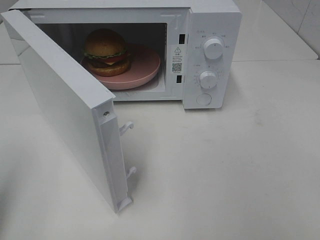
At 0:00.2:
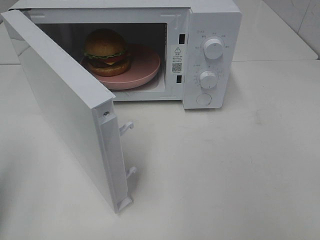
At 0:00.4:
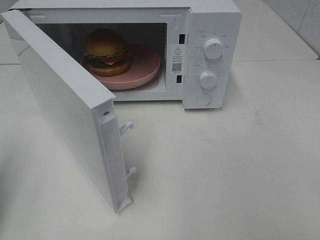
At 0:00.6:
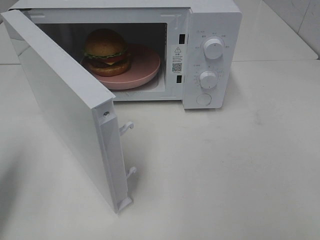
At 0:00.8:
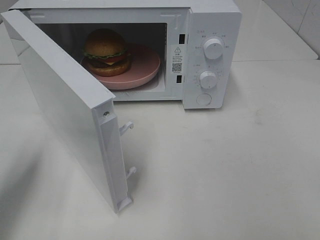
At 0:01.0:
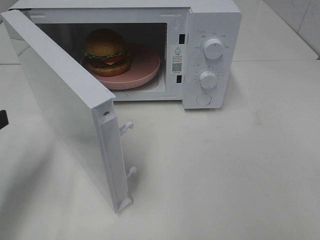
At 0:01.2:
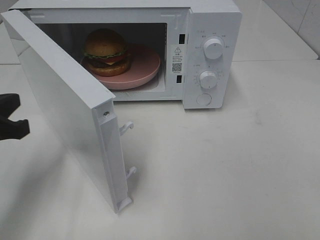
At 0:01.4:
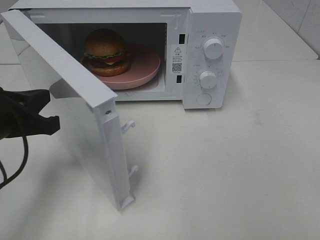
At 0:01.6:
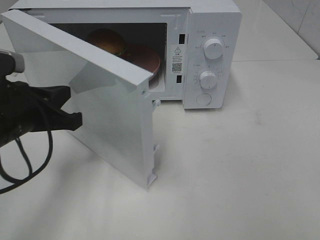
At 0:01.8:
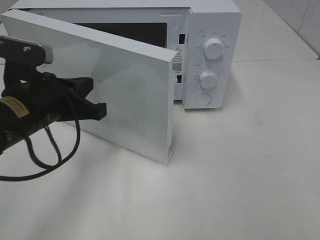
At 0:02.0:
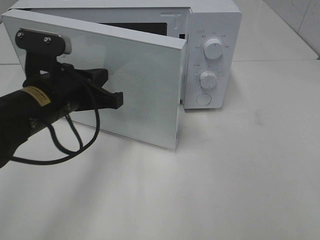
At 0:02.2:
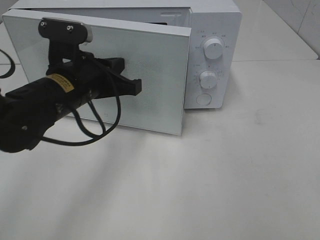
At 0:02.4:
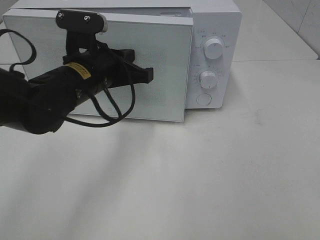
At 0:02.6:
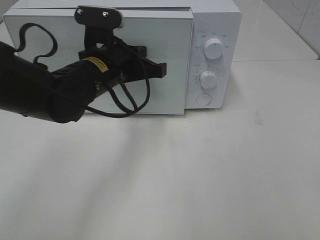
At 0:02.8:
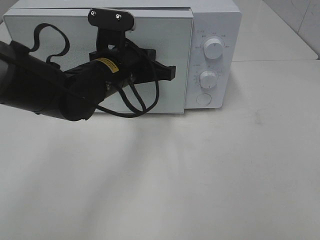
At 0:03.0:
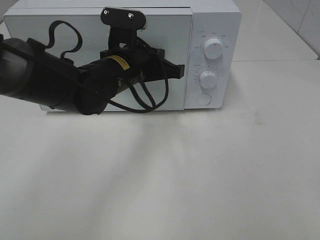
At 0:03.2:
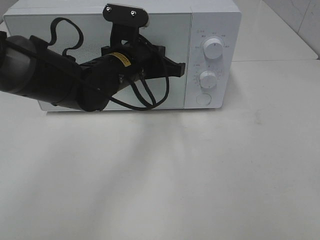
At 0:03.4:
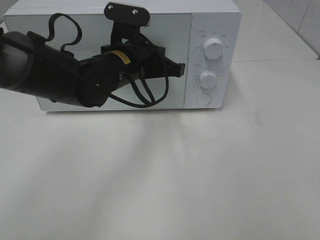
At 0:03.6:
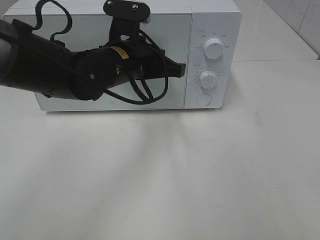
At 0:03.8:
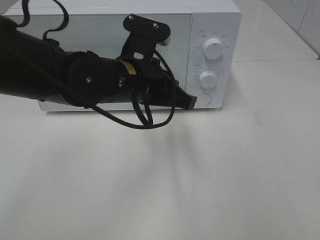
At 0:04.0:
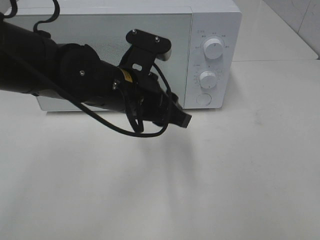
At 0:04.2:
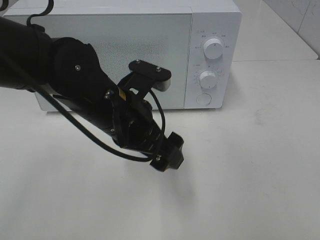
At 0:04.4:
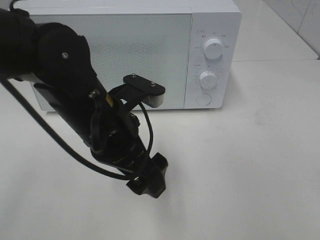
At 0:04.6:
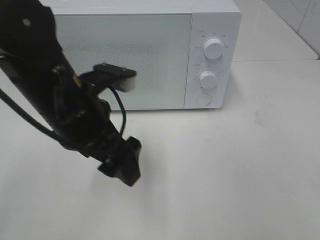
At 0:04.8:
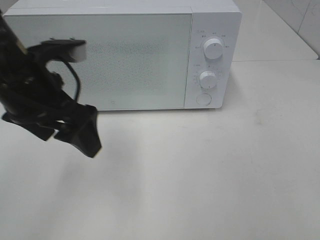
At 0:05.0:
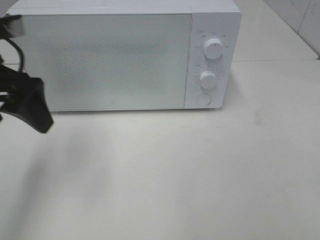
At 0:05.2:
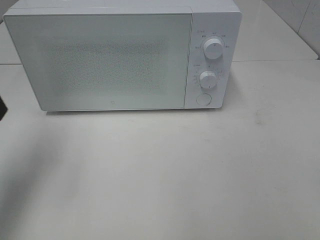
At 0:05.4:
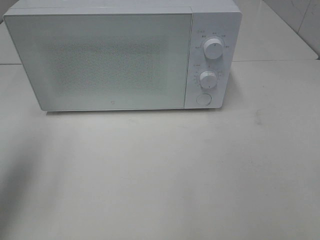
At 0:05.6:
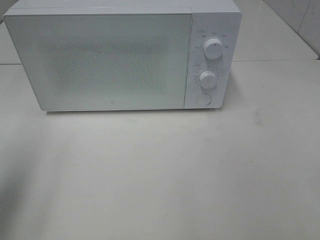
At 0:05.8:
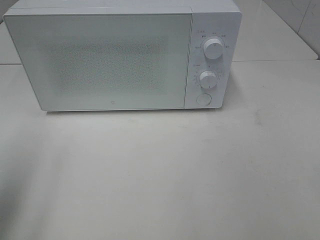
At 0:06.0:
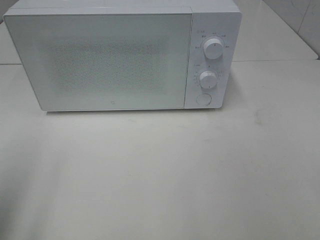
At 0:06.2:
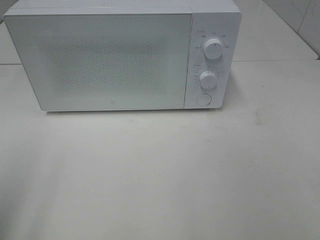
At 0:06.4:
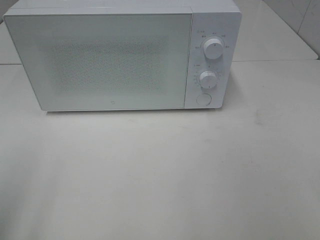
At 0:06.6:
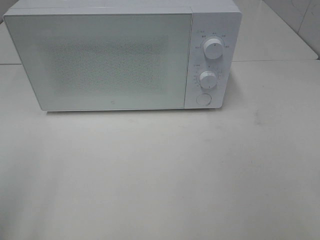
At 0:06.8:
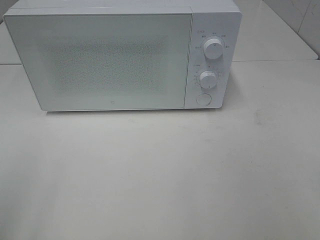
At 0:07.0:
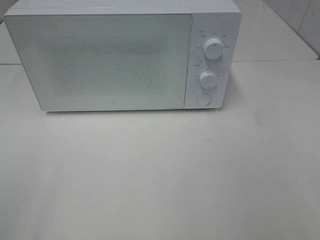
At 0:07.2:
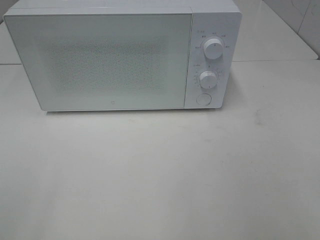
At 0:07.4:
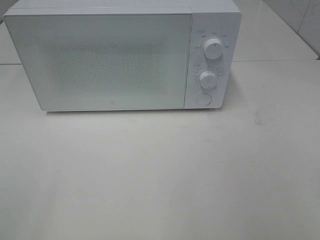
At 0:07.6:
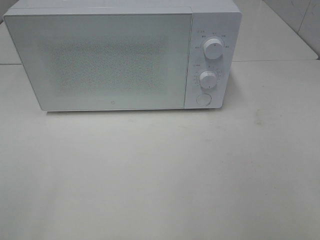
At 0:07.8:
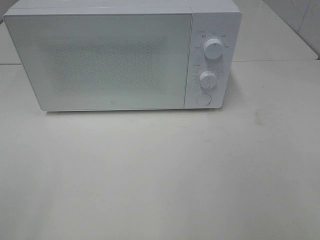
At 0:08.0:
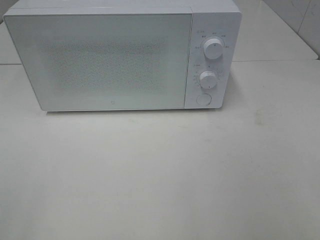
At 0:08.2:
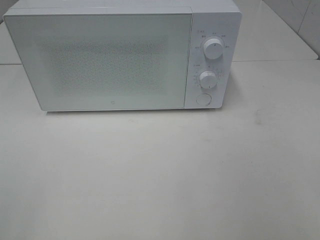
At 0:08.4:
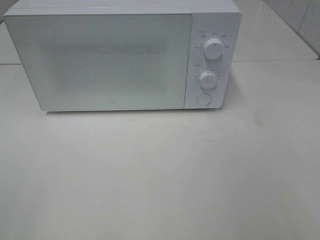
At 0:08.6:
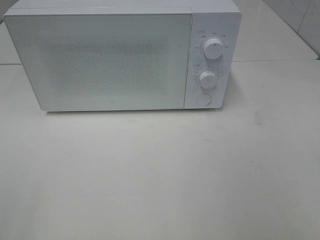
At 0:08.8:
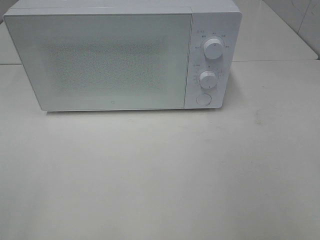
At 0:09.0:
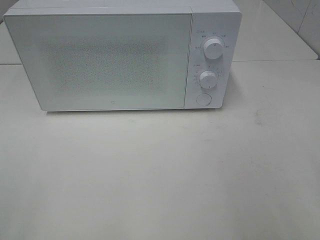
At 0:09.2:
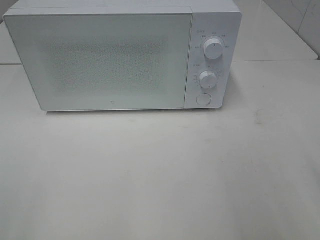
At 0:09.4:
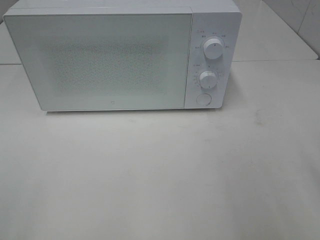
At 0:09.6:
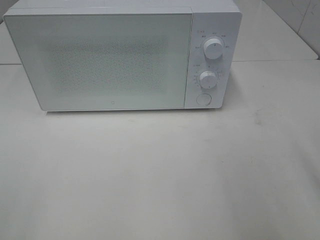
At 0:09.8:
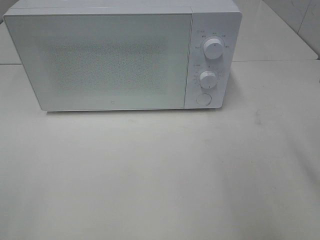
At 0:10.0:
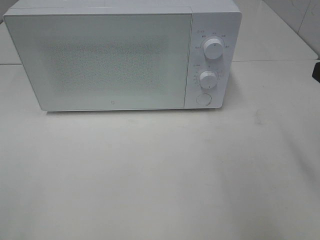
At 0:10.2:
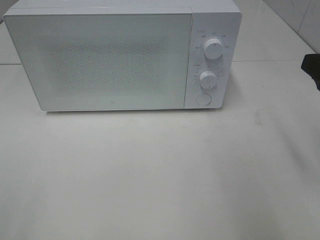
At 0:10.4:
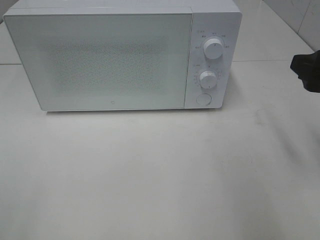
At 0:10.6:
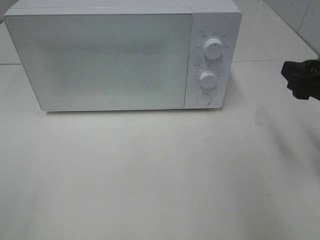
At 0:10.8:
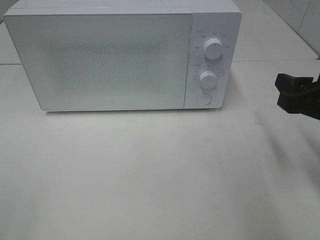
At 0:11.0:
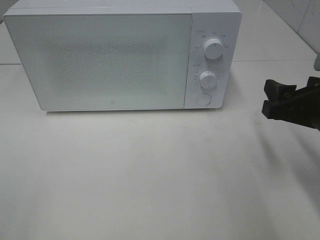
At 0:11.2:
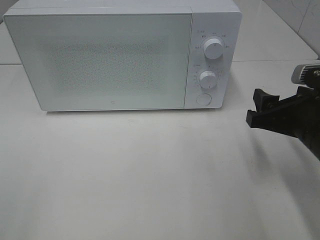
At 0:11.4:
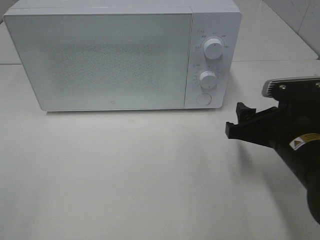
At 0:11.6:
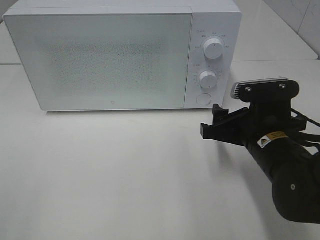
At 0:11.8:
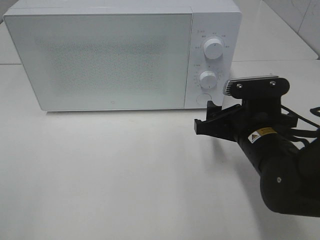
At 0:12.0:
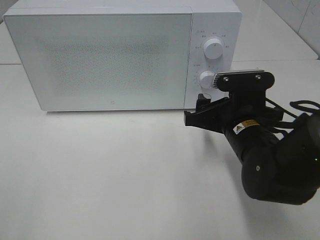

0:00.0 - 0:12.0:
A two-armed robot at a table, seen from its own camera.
Task of the whole recording: Heat the burger.
Step, 0:00.0 - 0:03.6: Left hand: close the microwave door.
0:00.0 - 0:01.6: The left gripper is displaced to the right, forward and downward by approximately 20 cm.
0:01.6 - 0:03.0: The left gripper moves to the right and forward, about 20 cm.
0:03.0 - 0:04.4: The left gripper shifts about 10 cm backward, and opens up.
0:04.4 - 0:06.0: The left gripper goes approximately 25 cm to the left and backward.
0:06.0 - 0:07.6: The left gripper goes some 10 cm backward.
0:09.0 - 0:10.4: The right gripper moves forward, roughly 15 cm.
0:10.4 - 0:12.0: The right gripper travels to the left and downward by roughly 15 cm.

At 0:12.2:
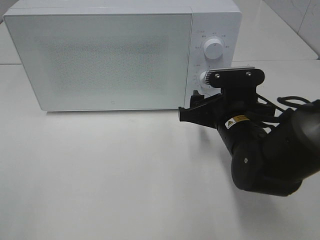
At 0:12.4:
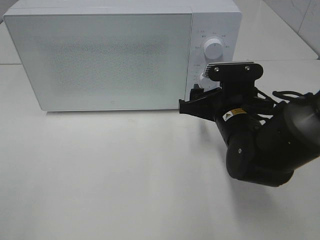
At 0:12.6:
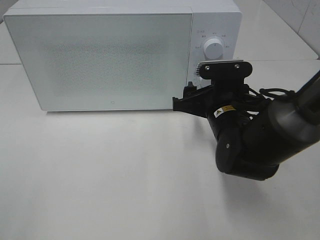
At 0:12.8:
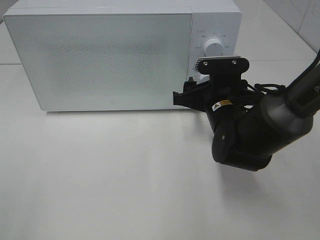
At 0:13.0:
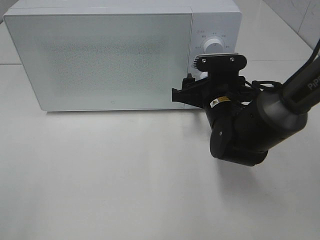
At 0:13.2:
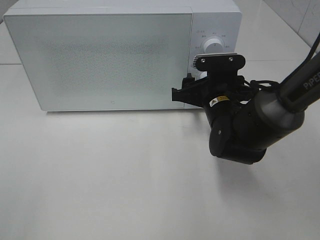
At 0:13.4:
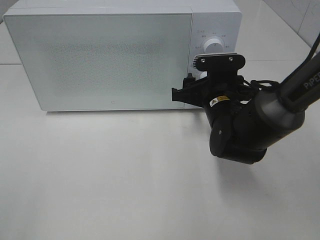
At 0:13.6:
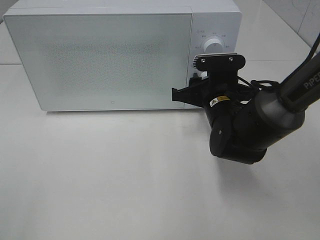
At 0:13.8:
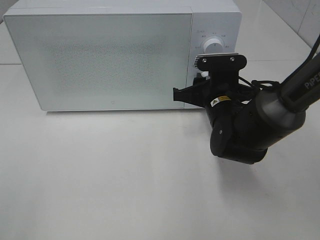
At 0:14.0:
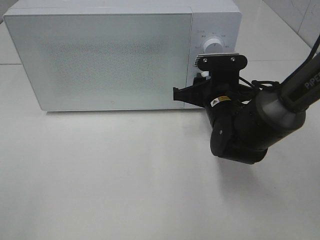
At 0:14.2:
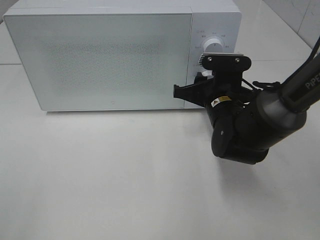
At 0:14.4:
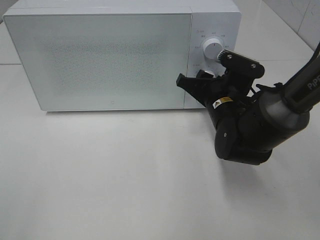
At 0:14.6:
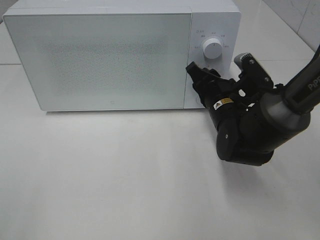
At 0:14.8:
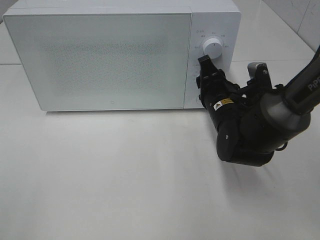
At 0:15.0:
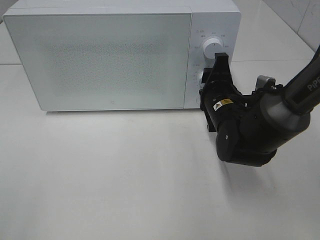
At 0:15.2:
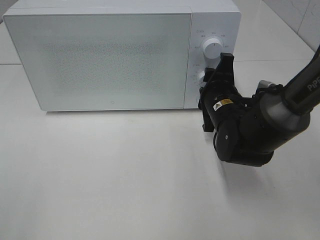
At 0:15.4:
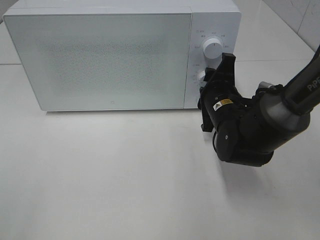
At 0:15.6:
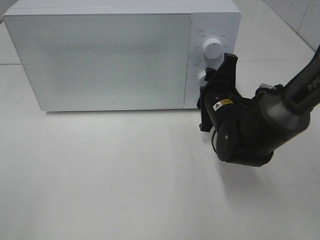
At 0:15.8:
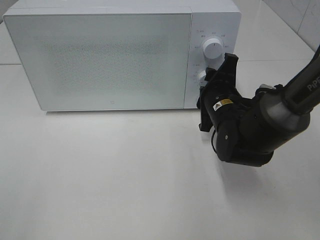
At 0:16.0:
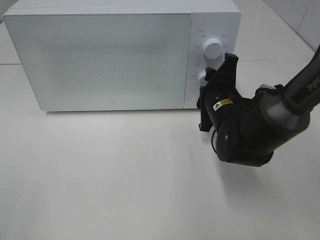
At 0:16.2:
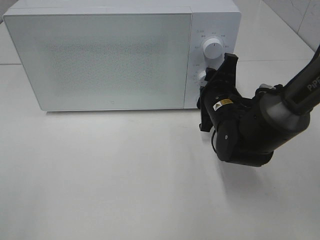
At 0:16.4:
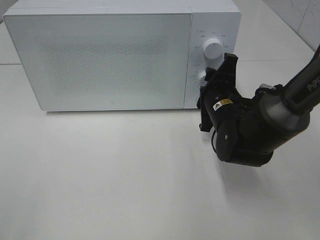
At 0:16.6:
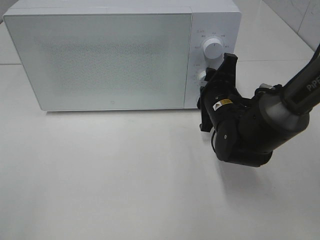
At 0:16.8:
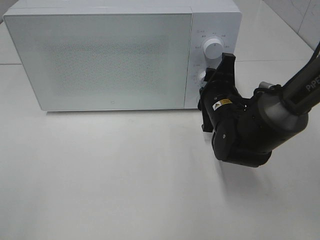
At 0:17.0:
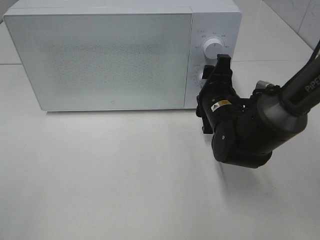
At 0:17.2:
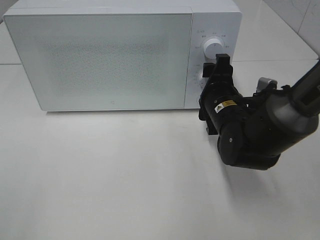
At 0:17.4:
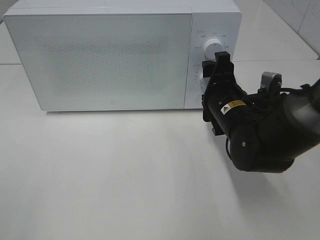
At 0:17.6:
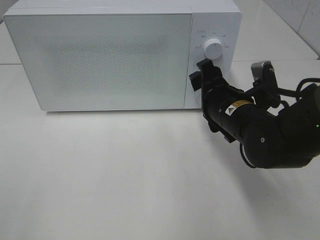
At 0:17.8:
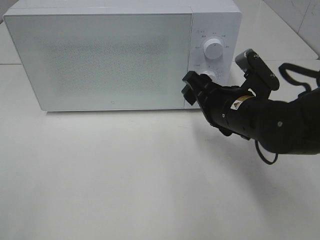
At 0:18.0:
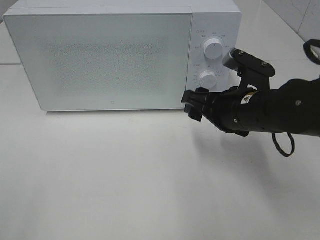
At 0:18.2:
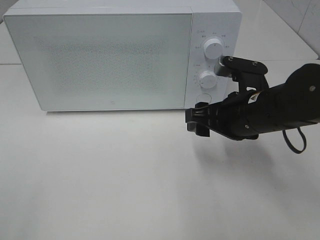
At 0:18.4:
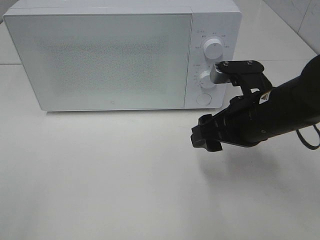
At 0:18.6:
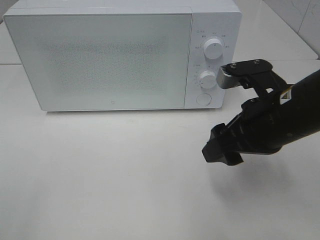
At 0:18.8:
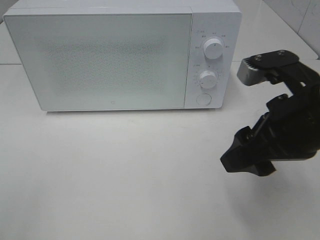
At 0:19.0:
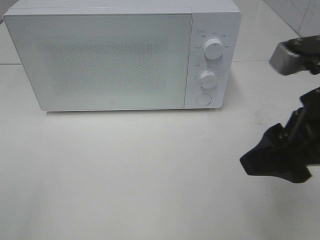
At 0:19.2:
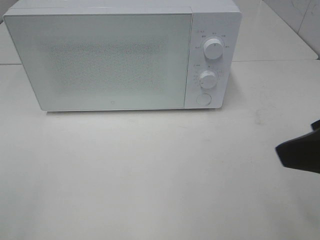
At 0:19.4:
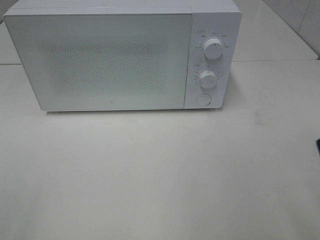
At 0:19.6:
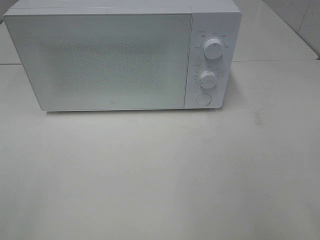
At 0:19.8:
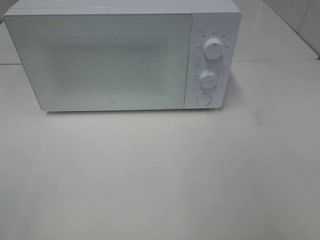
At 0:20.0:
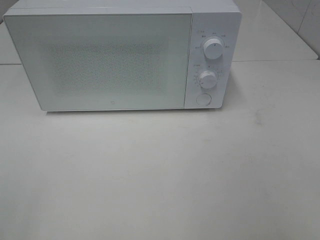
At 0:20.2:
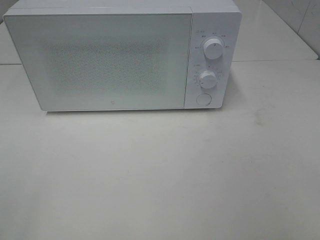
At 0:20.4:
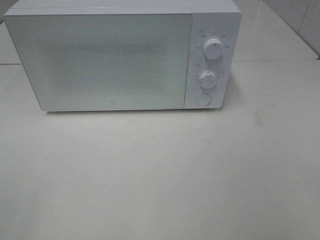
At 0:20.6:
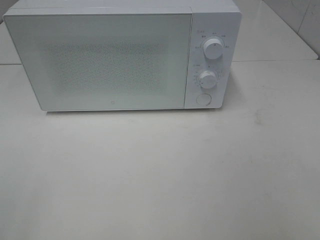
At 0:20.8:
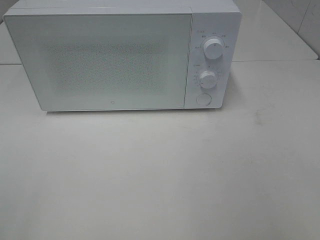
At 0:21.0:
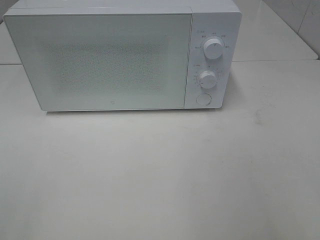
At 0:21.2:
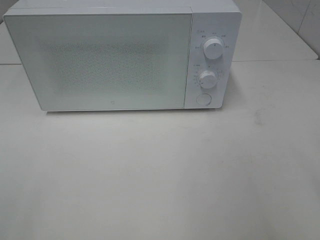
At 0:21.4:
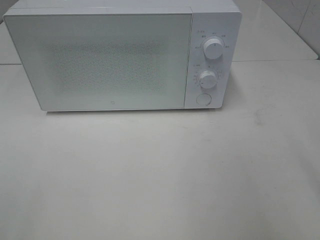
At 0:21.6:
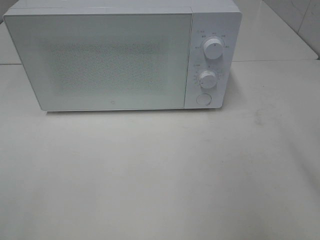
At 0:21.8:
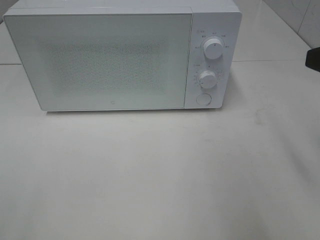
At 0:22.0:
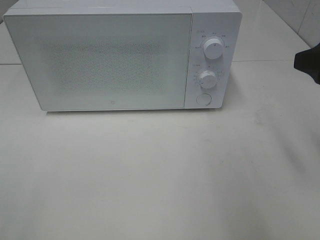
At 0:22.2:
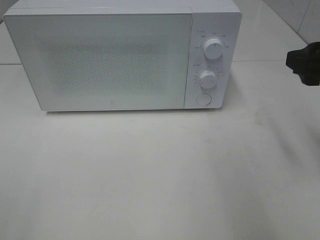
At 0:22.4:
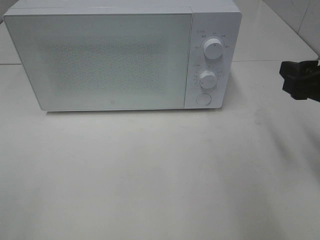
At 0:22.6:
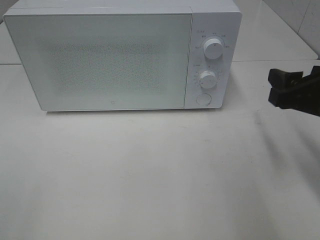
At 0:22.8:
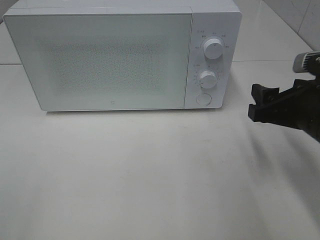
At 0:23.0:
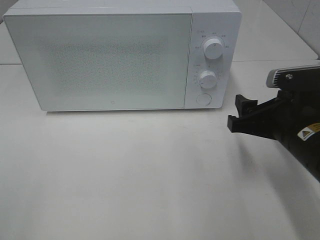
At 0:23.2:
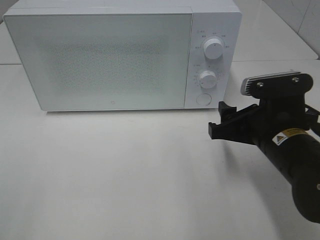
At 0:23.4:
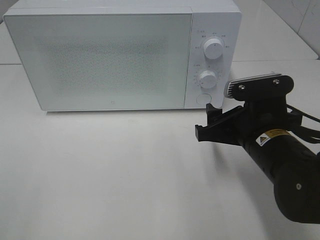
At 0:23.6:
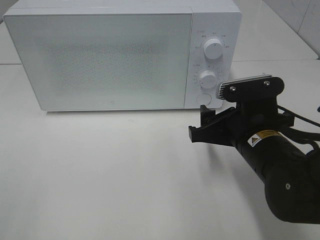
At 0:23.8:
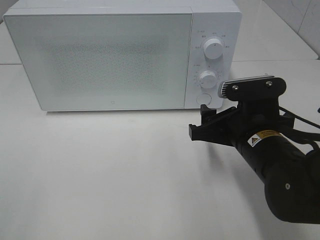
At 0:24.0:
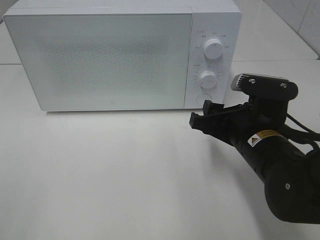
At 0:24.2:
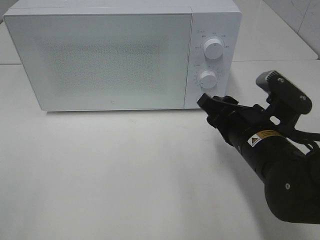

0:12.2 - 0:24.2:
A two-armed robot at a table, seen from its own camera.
Task of the whole recording: Heat the burger.
Step, 0:12.2 - 0:16.8: Right hand: twist timer button.
0:12.2 - 0:13.8: The right gripper travels forward by roughly 5 cm, and closes.
0:15.2 - 0:16.6: The grippers make only small movements.
0:16.6 - 0:18.2: The right gripper travels backward and upward by about 10 cm, and opens.
0:18.2 - 0:19.8: The right gripper heads backward, upward and to the right, covering roughly 30 cm.
0:21.2 - 0:22.6: The right gripper is displaced forward and downward by some 20 cm.
0:22.6 - 0:24.2: The right gripper heads to the left and downward, covering some 10 cm.
